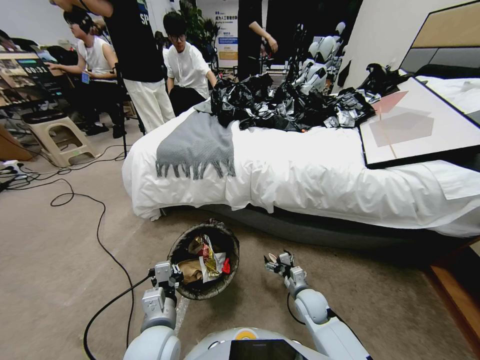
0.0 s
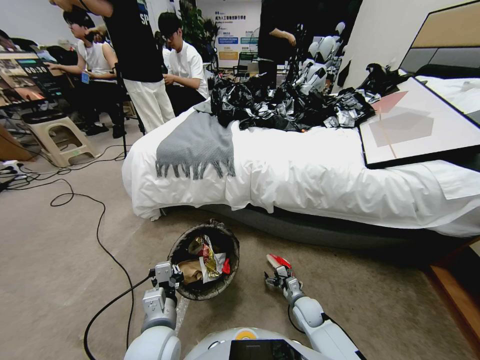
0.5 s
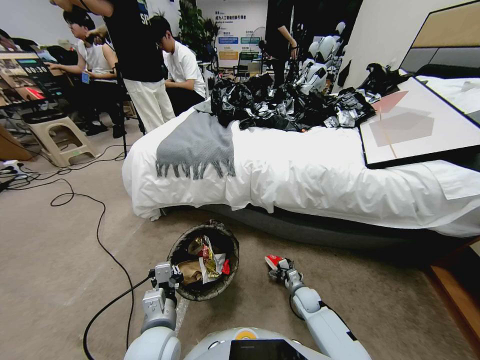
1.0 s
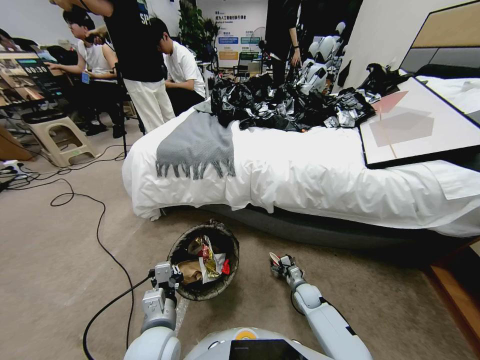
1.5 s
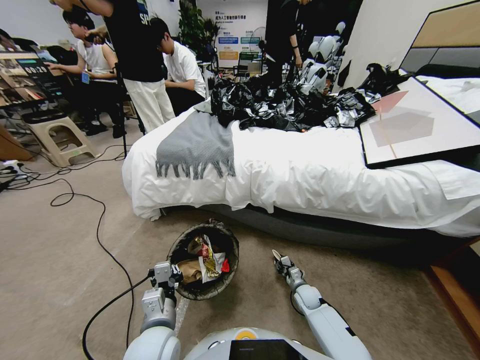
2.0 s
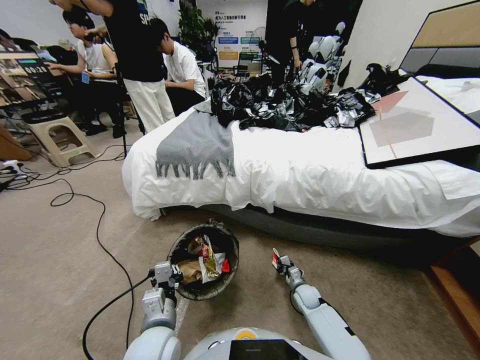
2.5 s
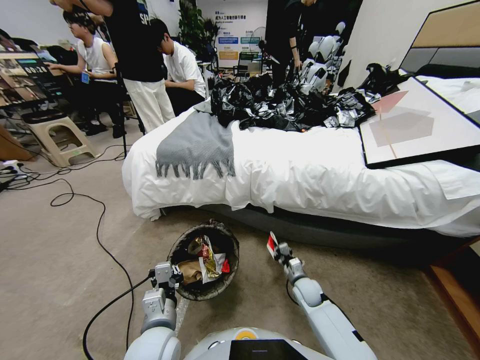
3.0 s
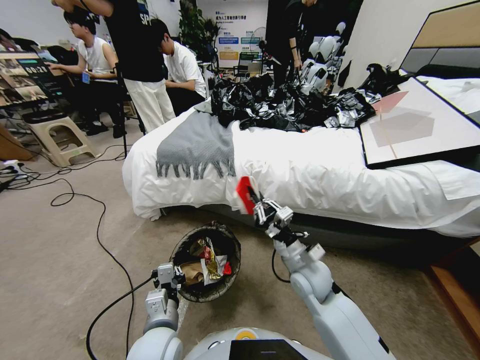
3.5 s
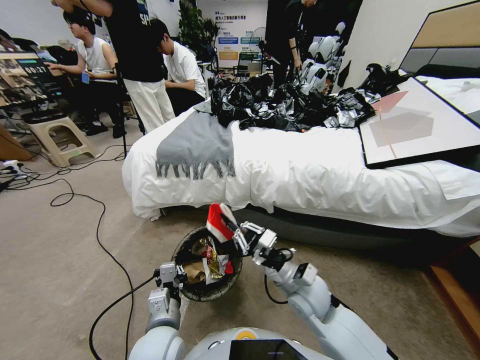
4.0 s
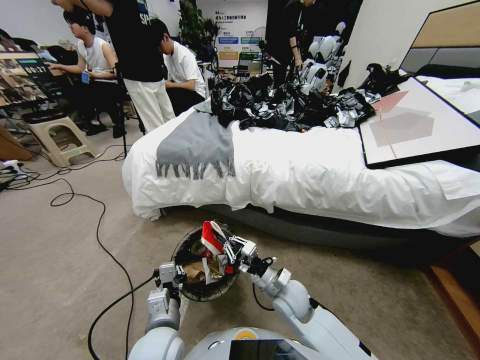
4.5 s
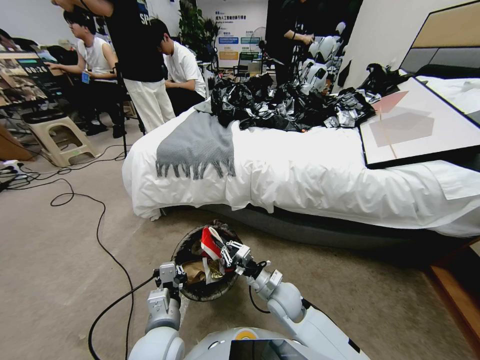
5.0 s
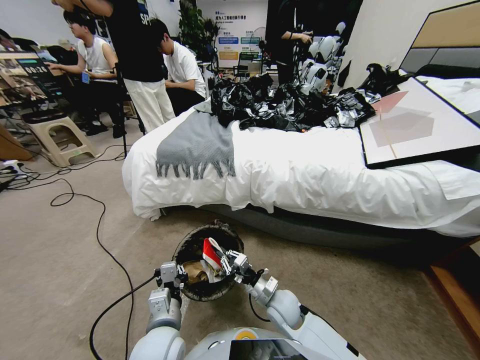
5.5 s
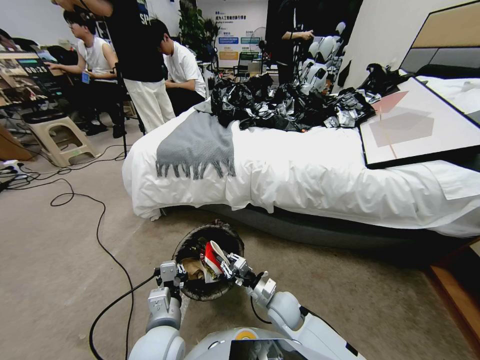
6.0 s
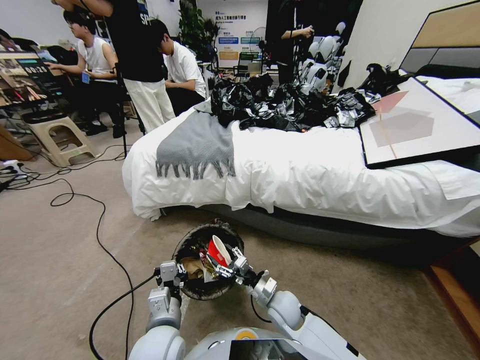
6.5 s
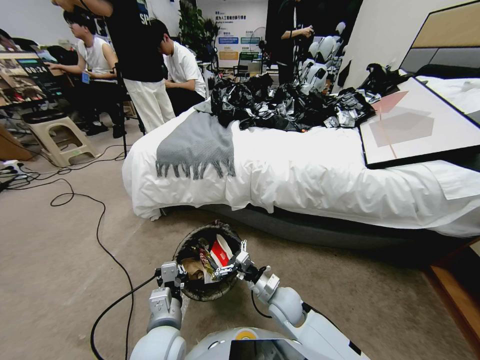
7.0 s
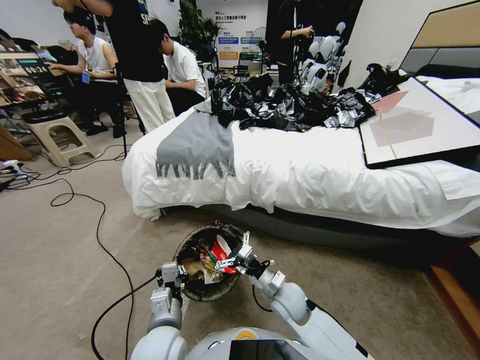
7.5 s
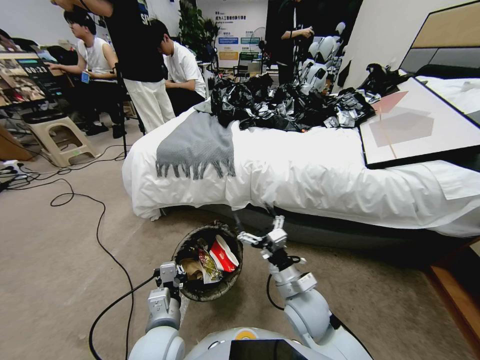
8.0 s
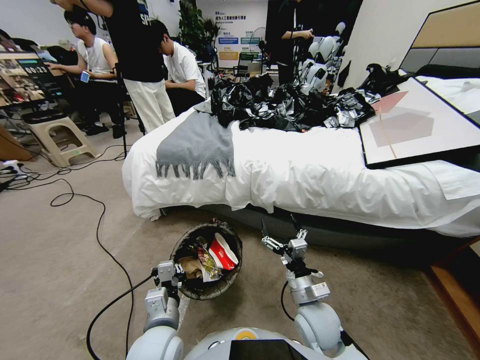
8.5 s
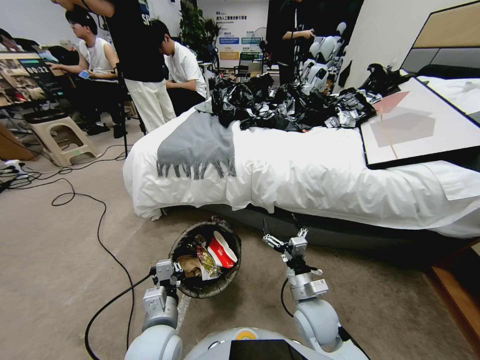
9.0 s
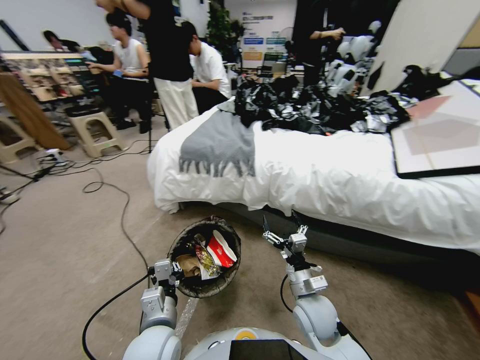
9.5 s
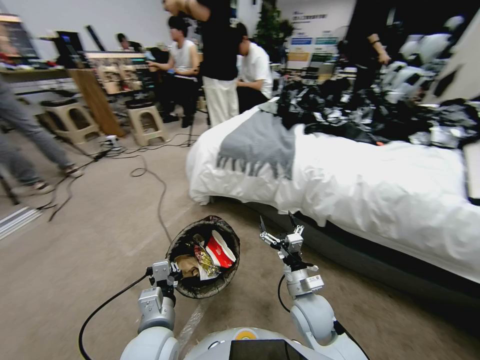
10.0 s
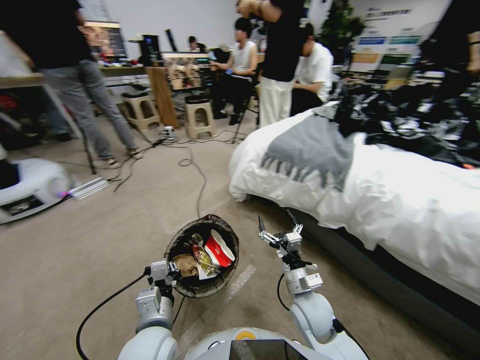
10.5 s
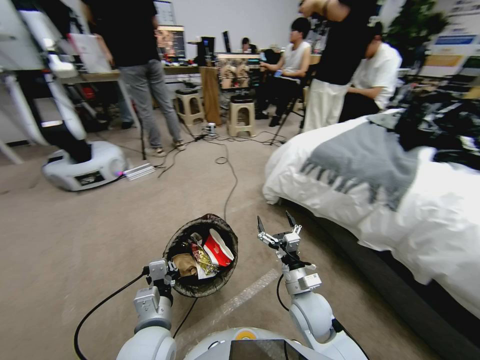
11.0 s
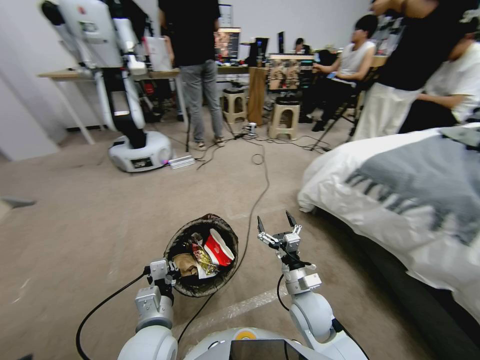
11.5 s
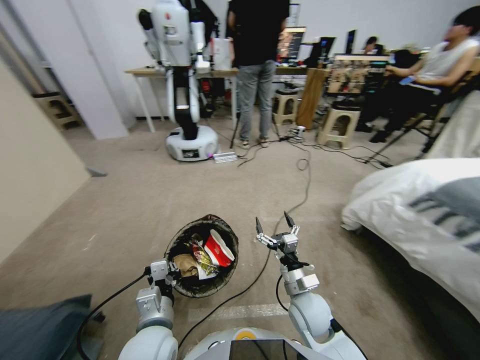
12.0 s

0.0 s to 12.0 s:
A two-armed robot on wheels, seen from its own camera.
Task of the whole recording: Pick up the trash bin, then pick up the garbage from the floor and place it into the trash bin.
0.0 to 2.0 s: The right gripper moves downward, some 10 cm, and closes.
2.0 to 4.0 s: The right gripper shifts some 30 cm upward and to the left.
4.0 to 6.0 s: The right gripper is displaced downward by some 10 cm.
6.0 to 8.0 s: The right gripper moves upward, some 10 cm, and opens up.

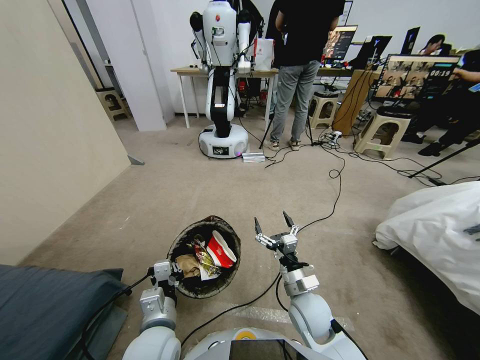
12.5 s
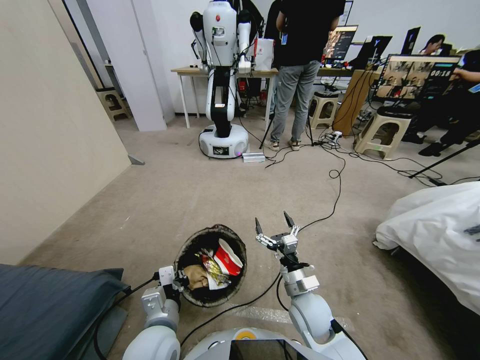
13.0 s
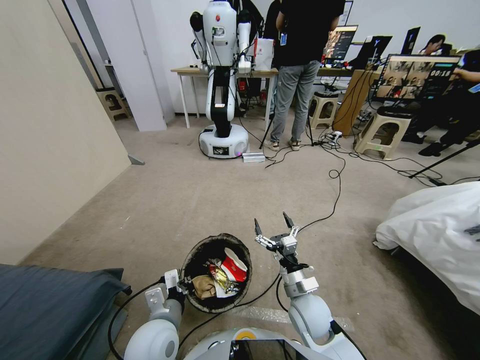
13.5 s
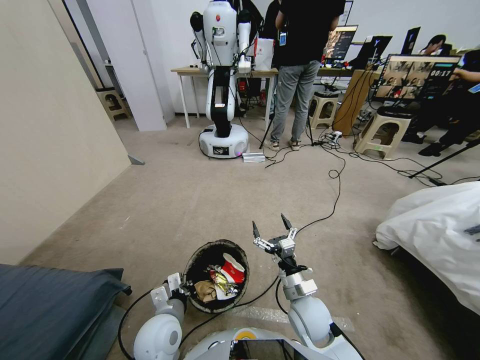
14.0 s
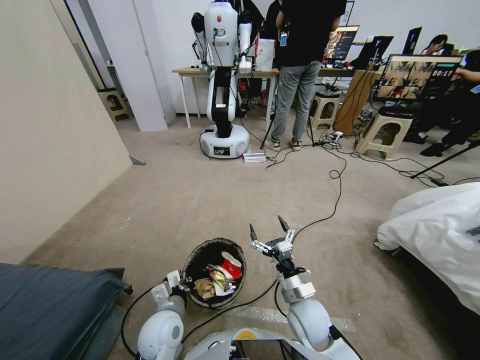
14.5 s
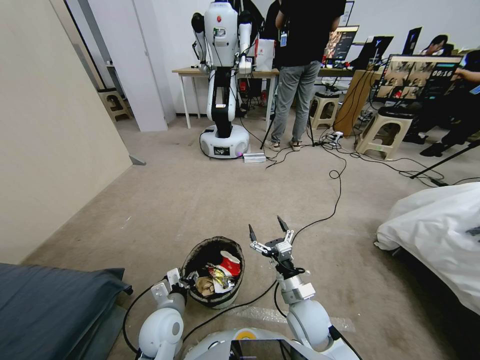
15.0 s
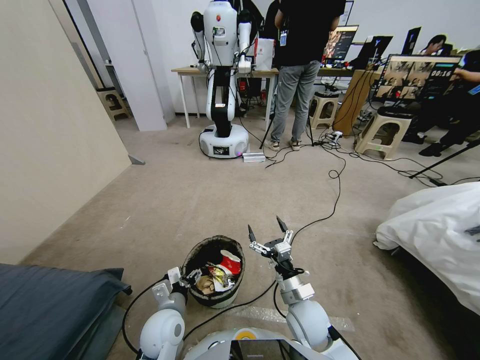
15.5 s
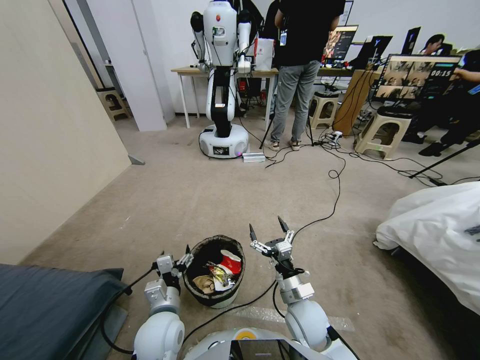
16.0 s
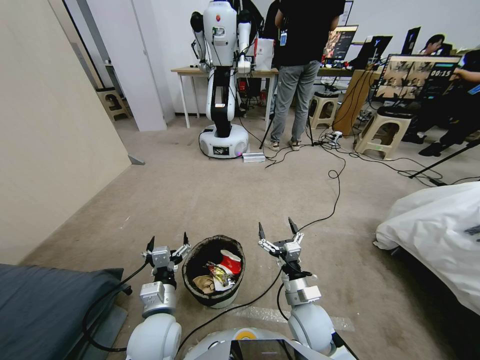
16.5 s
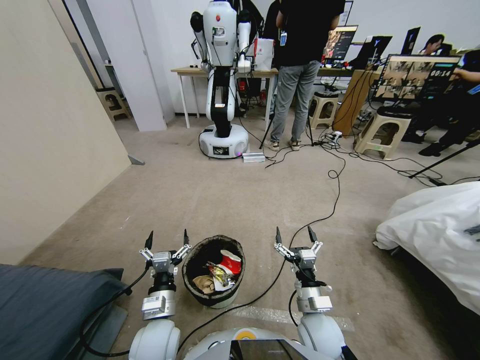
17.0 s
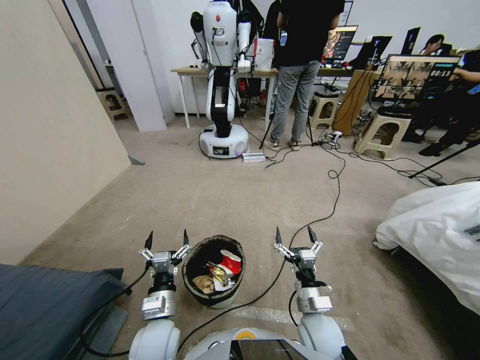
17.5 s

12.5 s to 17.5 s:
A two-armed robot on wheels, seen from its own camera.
Task of the whole recording: Pick up the trash bin, then pick up the garbage from the floor and place it into the trash bin.
12.5 to 15.0 s: The left gripper shifts approximately 5 cm downward, and opens its fingers.
